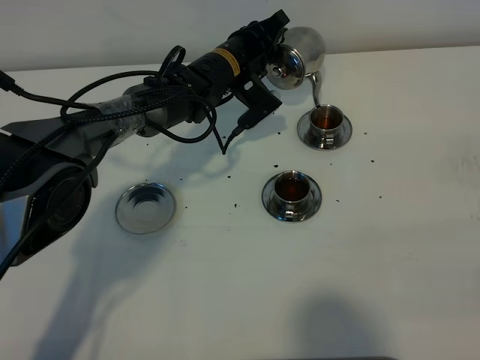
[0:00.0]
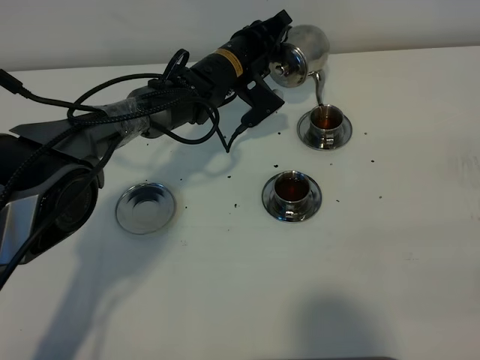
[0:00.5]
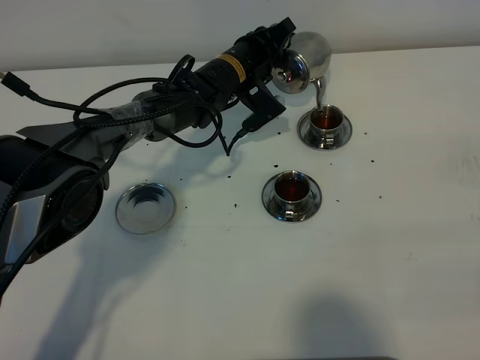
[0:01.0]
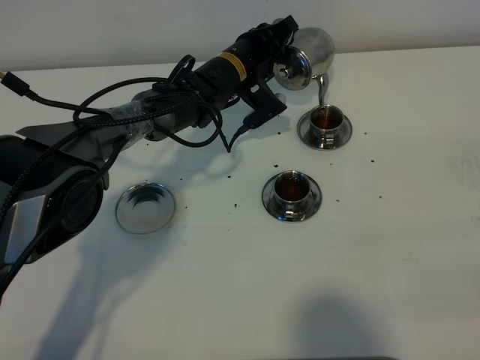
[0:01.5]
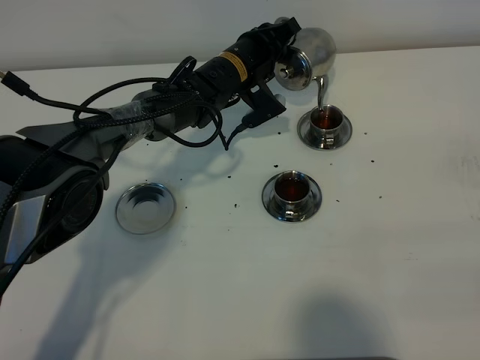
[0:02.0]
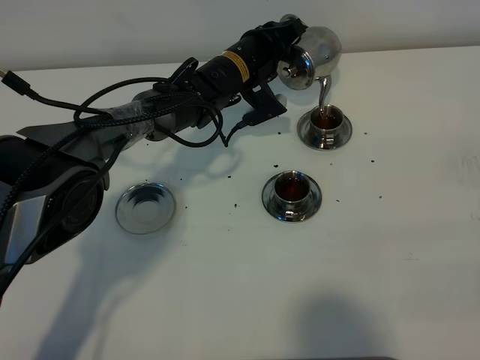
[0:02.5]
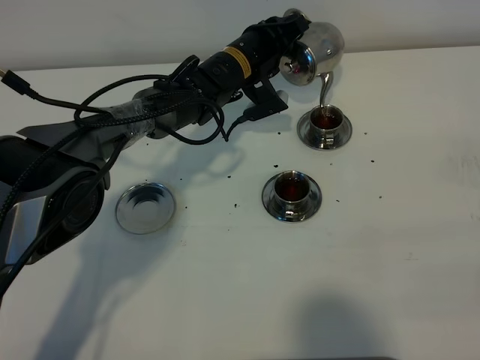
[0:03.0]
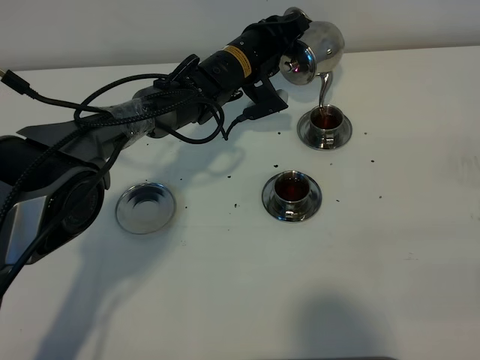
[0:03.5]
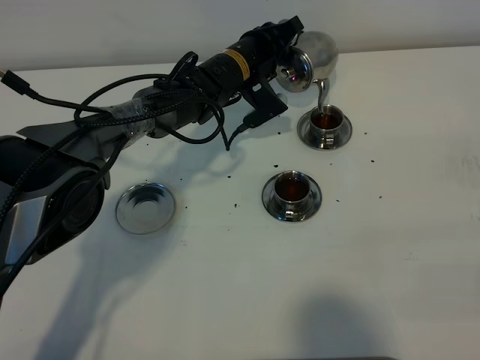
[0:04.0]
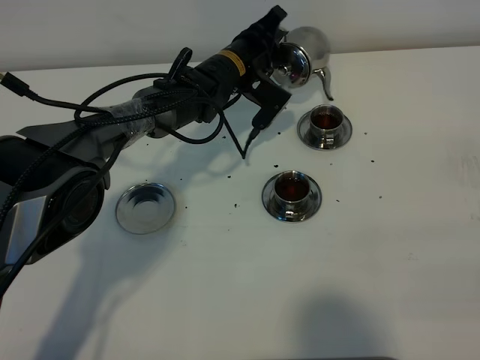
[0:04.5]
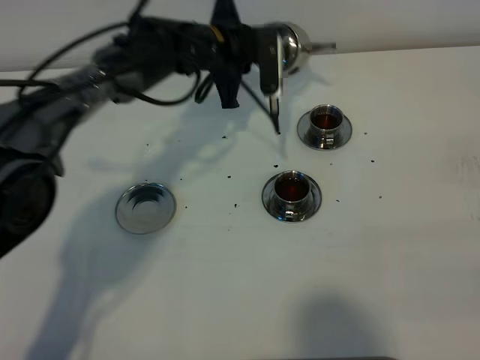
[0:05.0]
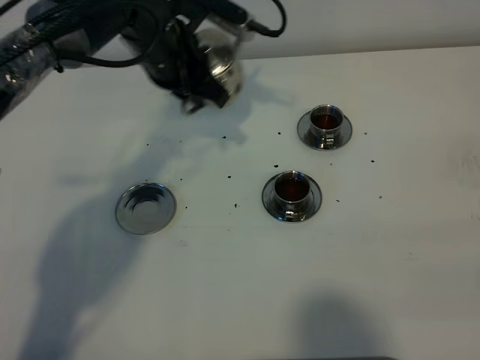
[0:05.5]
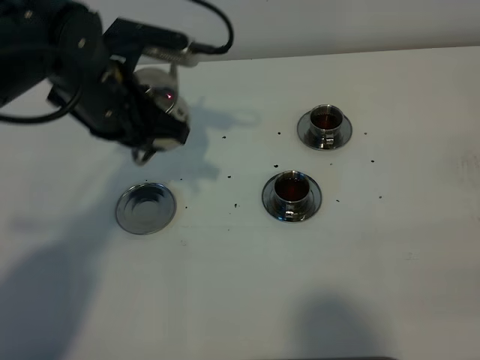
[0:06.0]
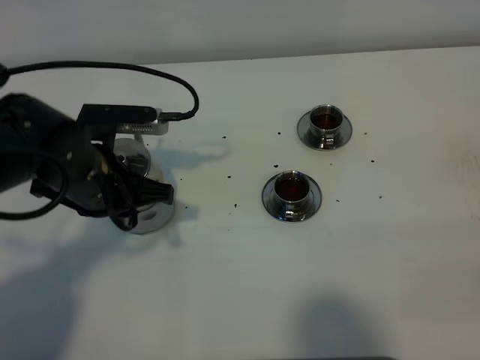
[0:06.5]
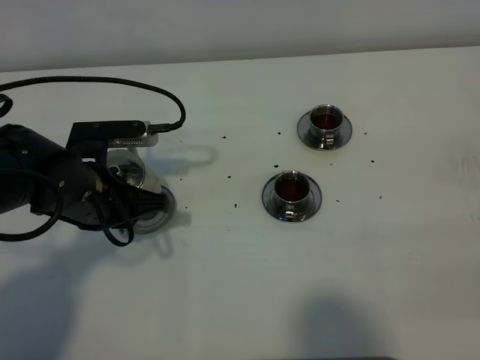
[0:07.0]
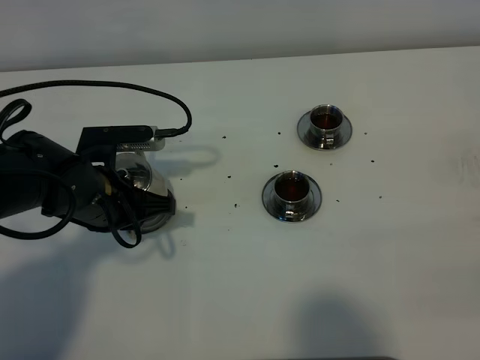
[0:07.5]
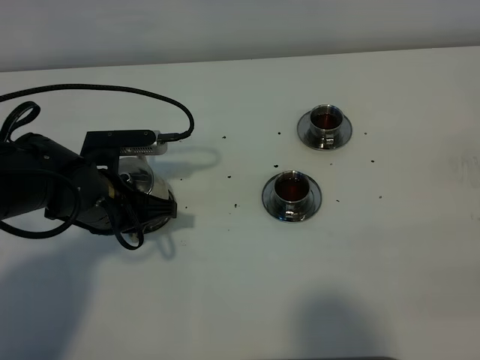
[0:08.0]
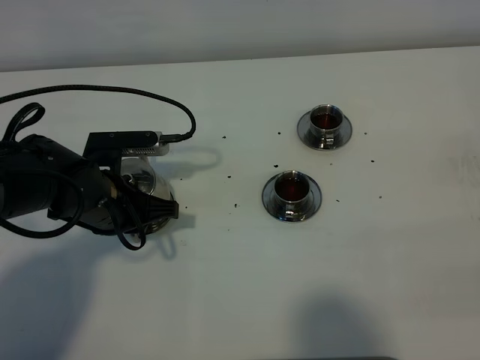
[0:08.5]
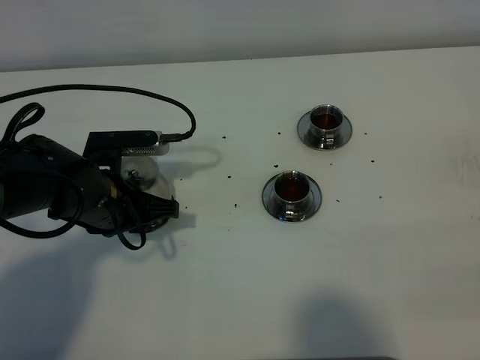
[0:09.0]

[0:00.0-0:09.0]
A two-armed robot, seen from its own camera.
Task of the whole recording: grasp the stainless steel teapot and pour the tea into the two stainless steel teacups one by one, put the stainless steel teapot back in its original place.
Step, 0:00.0 to 0:04.5: Pour tea into the teacup with the left gripper.
0:00.0 to 0:02.0: The grippers make only small movements.
0:04.5 to 0:07.0: The left gripper heads backward and to the left, covering approximately 25 cm.
0:07.0 to 0:09.0: The left gripper opens.

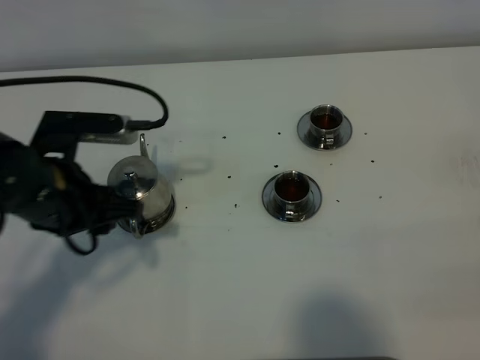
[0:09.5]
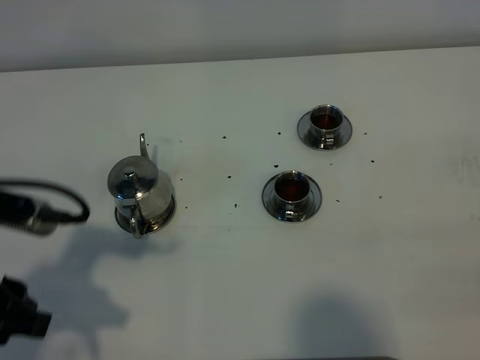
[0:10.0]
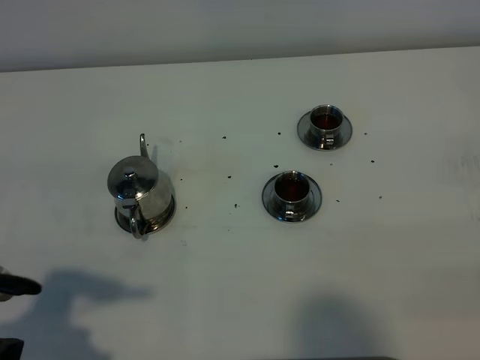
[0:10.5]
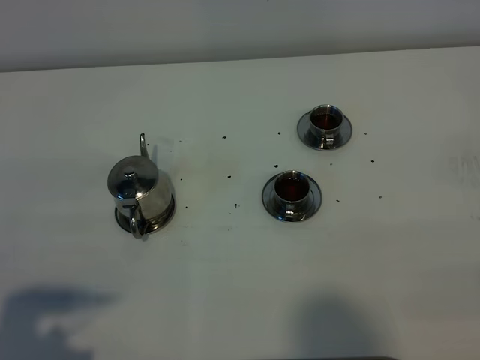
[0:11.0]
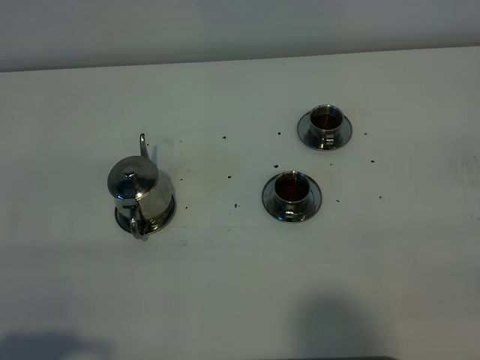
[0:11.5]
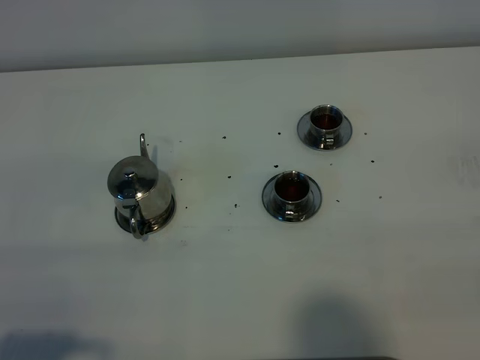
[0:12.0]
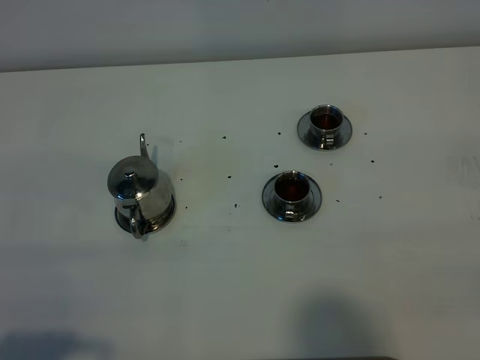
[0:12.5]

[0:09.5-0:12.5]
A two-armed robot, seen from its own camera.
Task of the whole recording: grasp the stainless steel teapot and pour the tea into the two stainless steel teacups one by one, put the stainless steel teapot back in its original place.
0:09.5 to 0:11.0: The left gripper is displaced backward and to the left by some 20 cm.
0:11.0 to 0:12.5: The grippers move only a little.

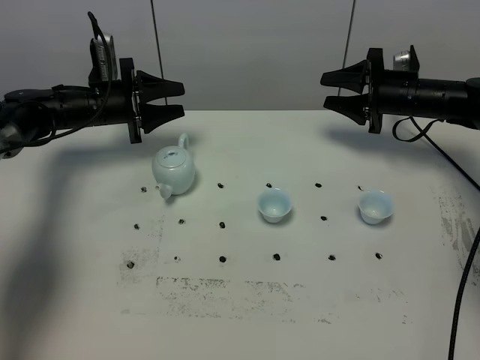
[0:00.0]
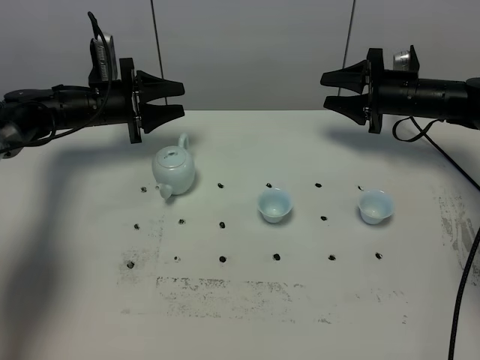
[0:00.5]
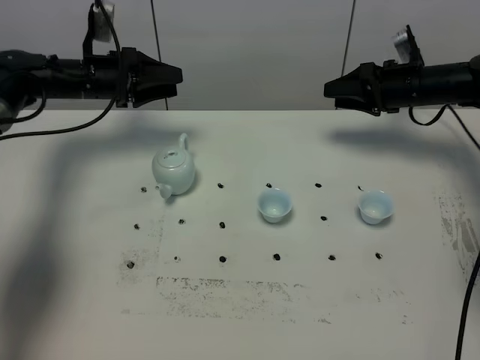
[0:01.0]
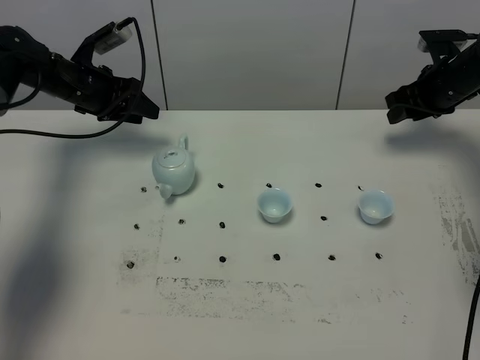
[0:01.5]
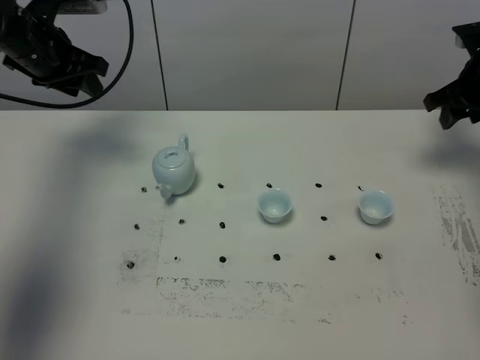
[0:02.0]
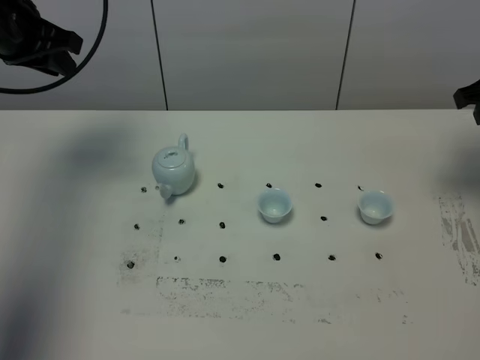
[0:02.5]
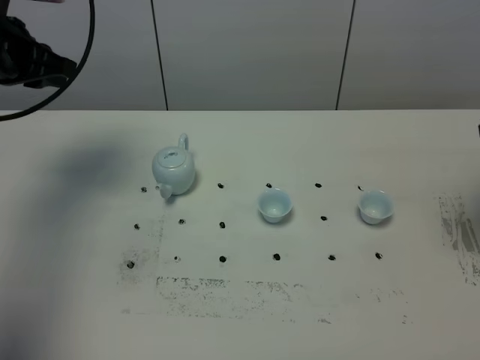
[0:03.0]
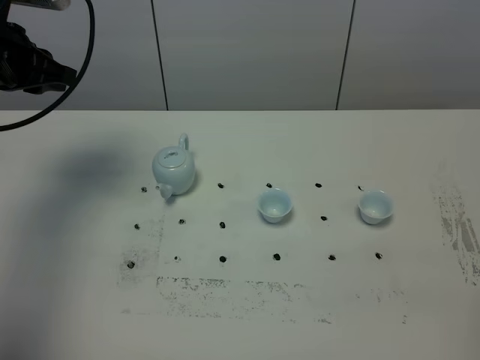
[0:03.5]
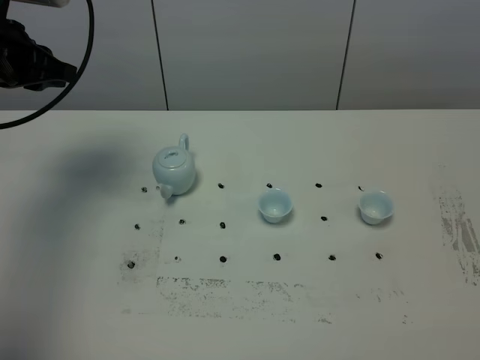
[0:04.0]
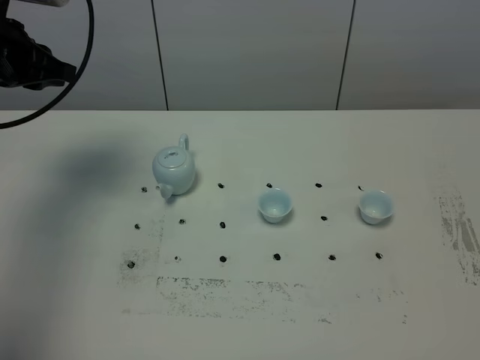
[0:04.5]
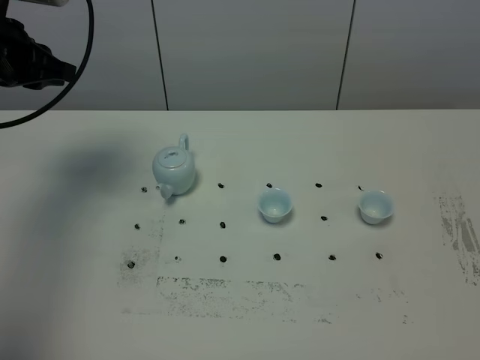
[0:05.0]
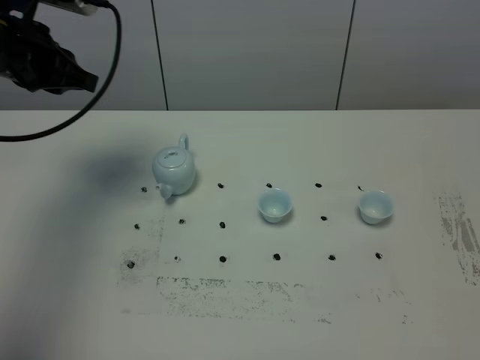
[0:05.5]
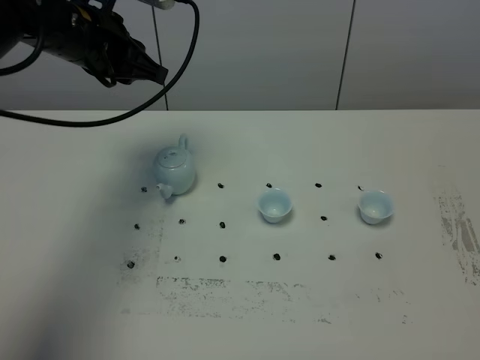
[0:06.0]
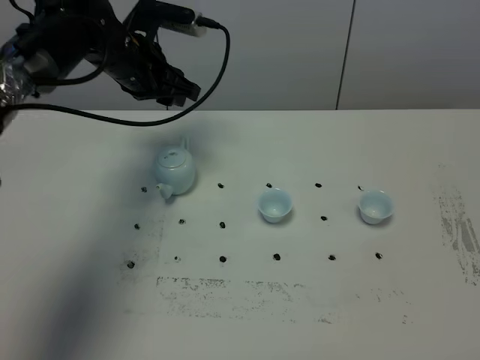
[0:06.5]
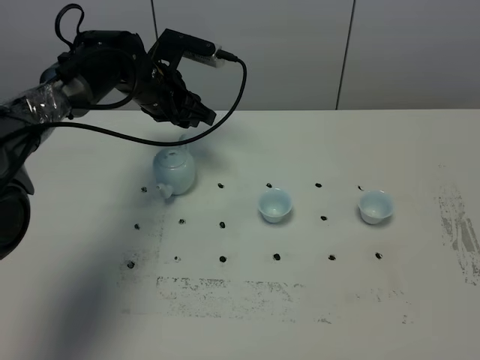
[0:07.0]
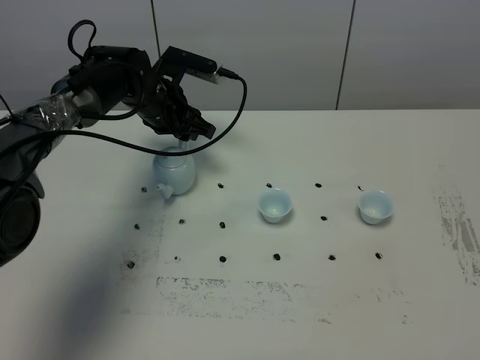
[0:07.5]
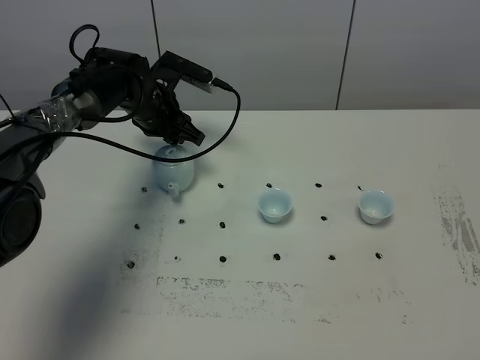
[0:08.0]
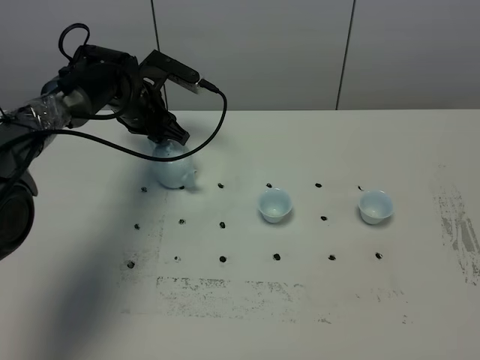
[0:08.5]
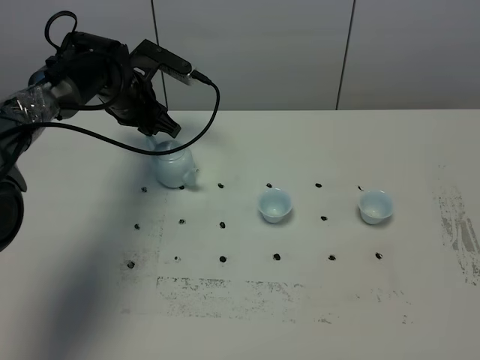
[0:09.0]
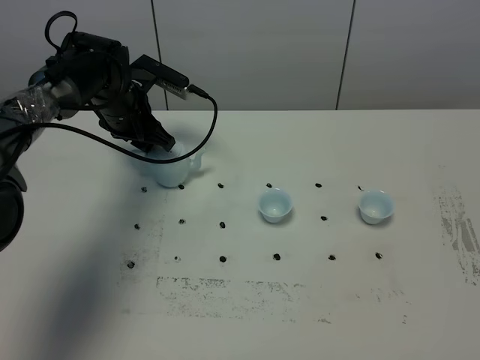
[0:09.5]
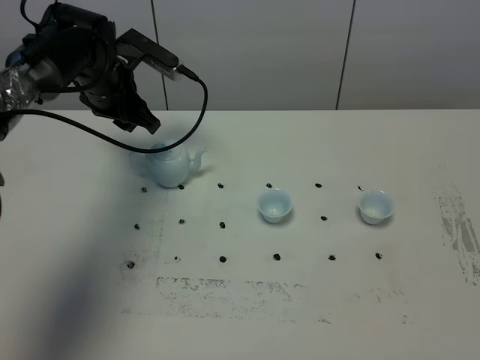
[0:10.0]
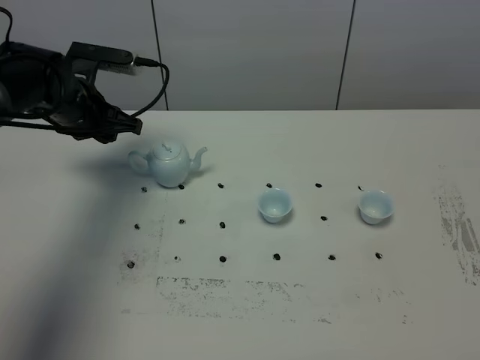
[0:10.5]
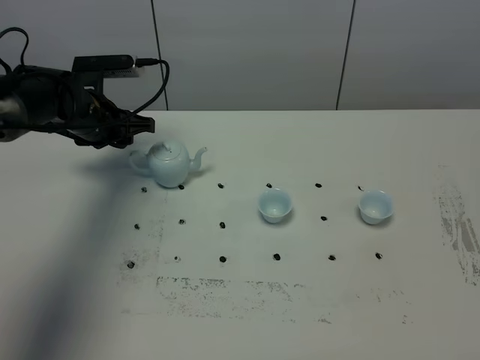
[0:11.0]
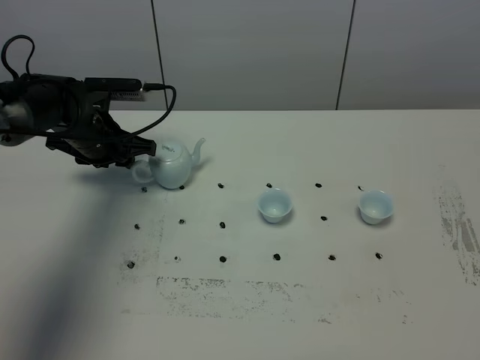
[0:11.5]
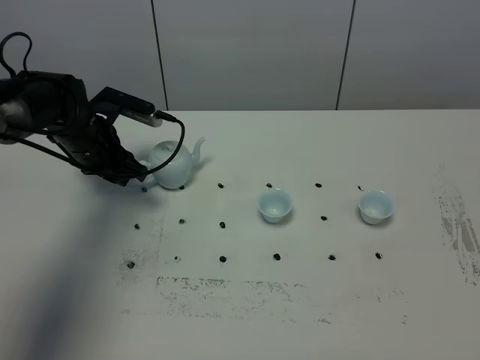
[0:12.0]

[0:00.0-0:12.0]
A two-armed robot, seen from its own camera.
Task of the whole recording: grasp the blue porcelain teapot and pour the tea into the two blue porcelain teacups one by one, put the blue porcelain teapot back in its original place.
0:00.0 to 0:02.0: The left gripper shifts approximately 15 cm upward. The right gripper heads upward and to the right, covering some 15 cm.
0:02.0 to 0:04.0: The right gripper travels backward by roughly 50 cm, and closes its fingers, while the left gripper is displaced backward by approximately 10 cm, and closes its fingers.
0:04.0 to 0:06.0: The right gripper changes place by approximately 5 cm, while the left gripper heads to the right, covering about 10 cm.
0:06.0 to 0:08.0: The left gripper goes some 15 cm downward and forward, and opens up.
0:08.0 to 0:10.0: The left gripper is displaced upward by about 5 cm.
0:10.0 to 0:12.0: The left gripper heads downward, covering some 5 cm.

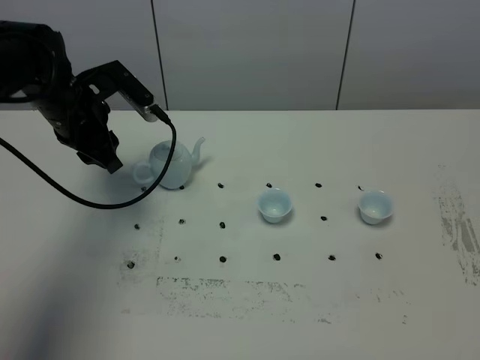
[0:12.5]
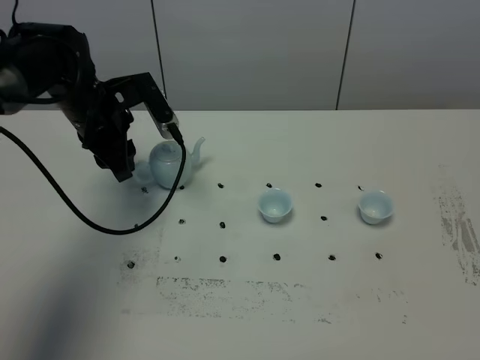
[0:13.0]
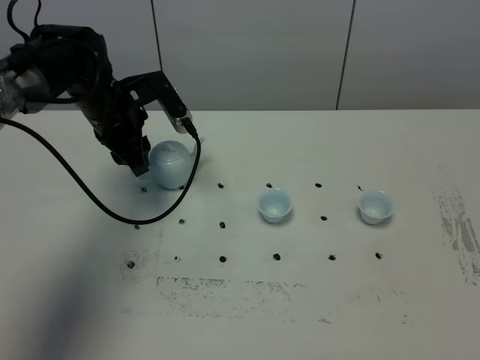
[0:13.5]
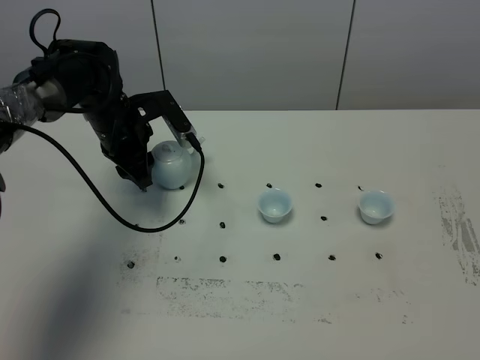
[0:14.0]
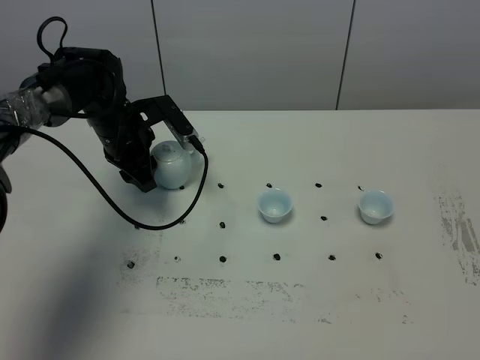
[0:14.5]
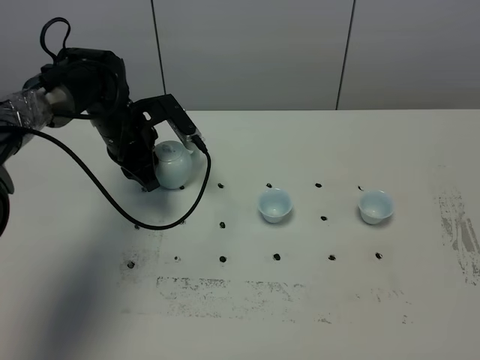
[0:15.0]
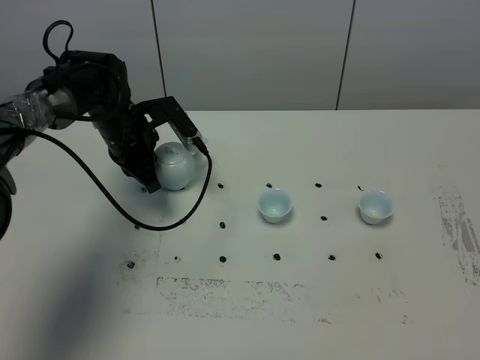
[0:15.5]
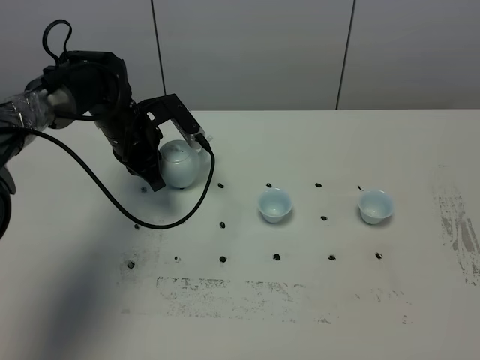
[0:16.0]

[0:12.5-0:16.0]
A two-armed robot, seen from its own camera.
Task of the whole recording: grasp the blue porcelain teapot and pour the tea into the two blue porcelain teacups one by one, put the blue porcelain teapot back in its original place.
0:12.5 to 0:14.5: The left gripper goes roughly 5 cm downward.
0:14.5 to 0:16.0: The left gripper closes its fingers.
